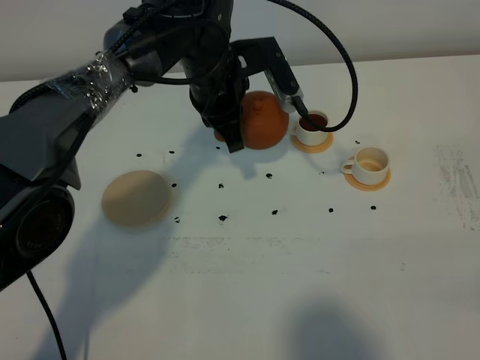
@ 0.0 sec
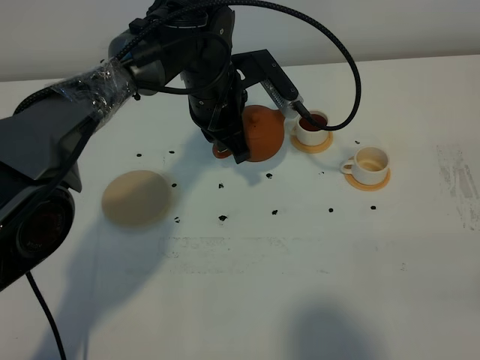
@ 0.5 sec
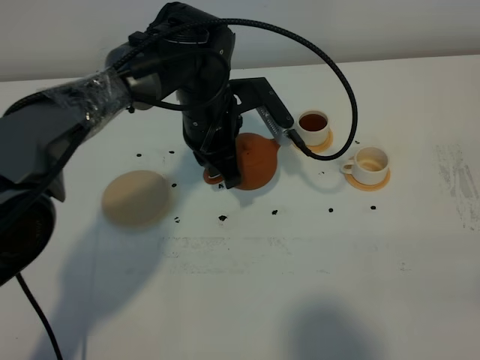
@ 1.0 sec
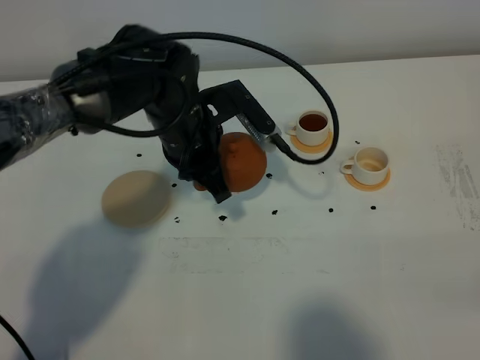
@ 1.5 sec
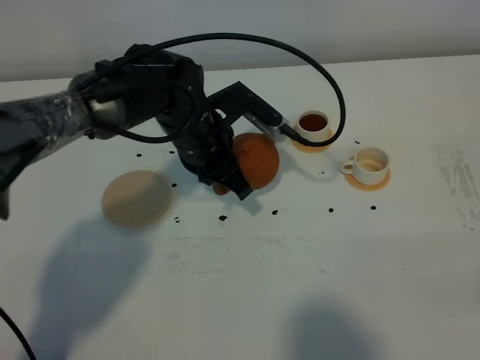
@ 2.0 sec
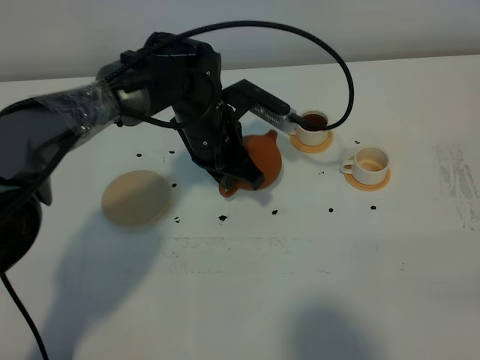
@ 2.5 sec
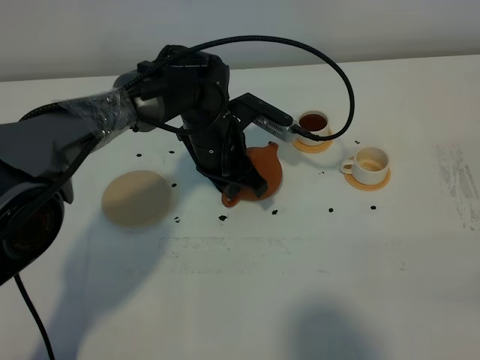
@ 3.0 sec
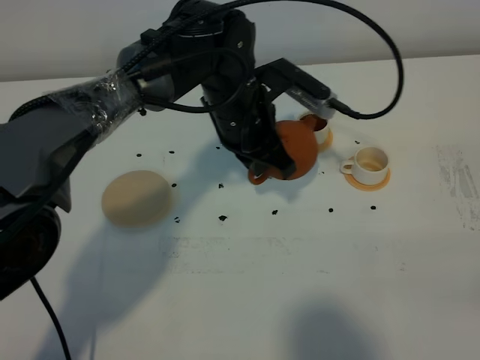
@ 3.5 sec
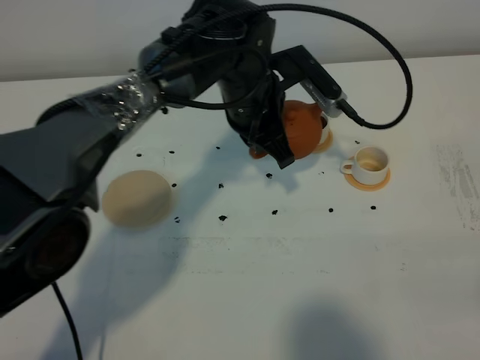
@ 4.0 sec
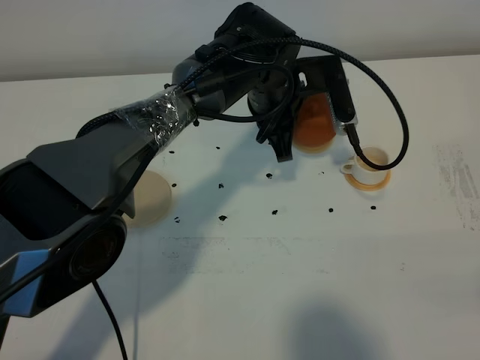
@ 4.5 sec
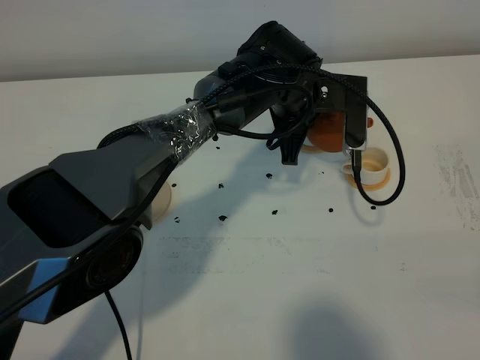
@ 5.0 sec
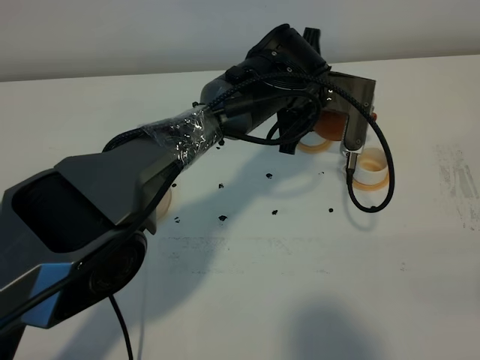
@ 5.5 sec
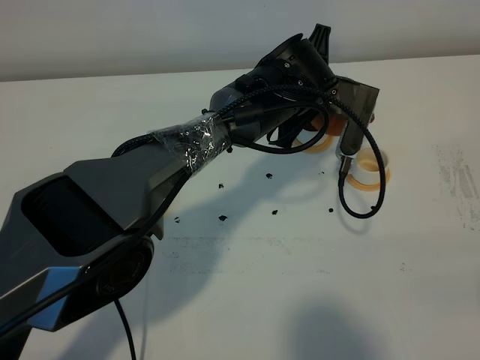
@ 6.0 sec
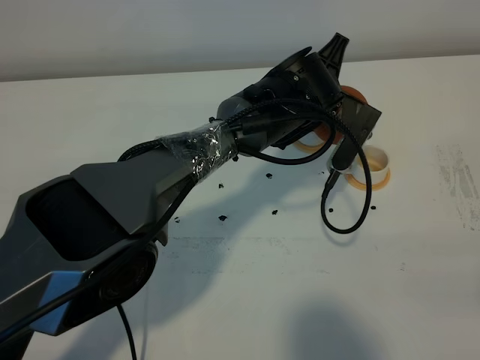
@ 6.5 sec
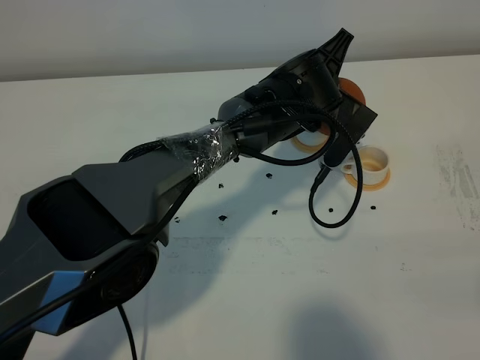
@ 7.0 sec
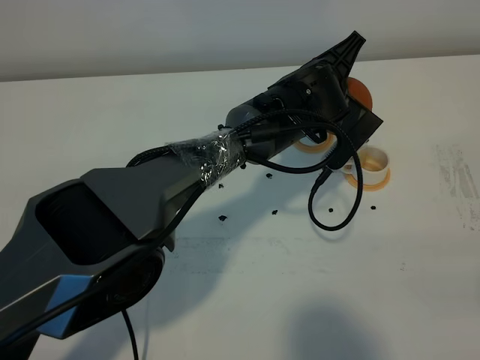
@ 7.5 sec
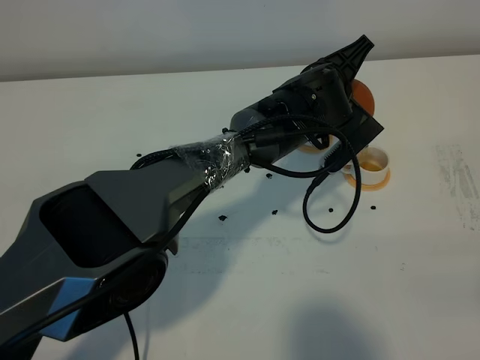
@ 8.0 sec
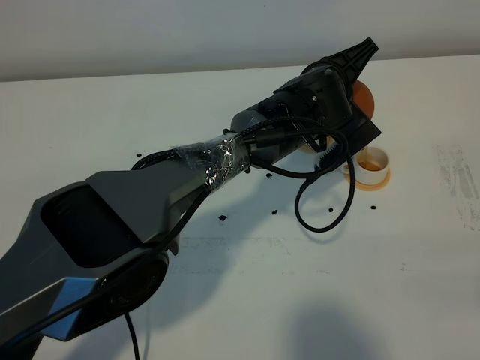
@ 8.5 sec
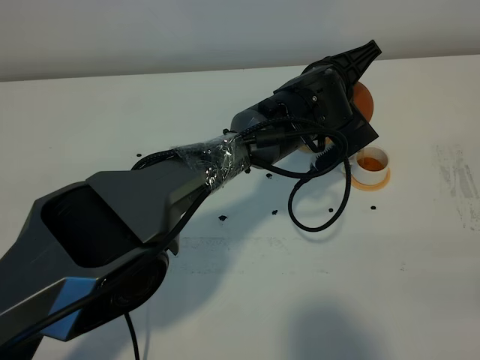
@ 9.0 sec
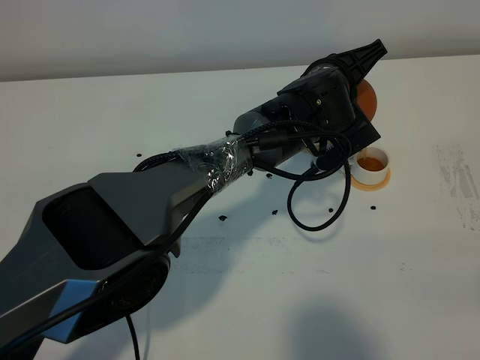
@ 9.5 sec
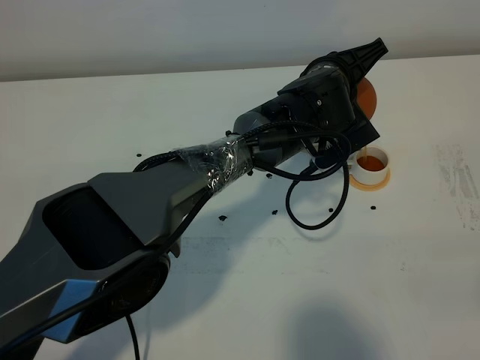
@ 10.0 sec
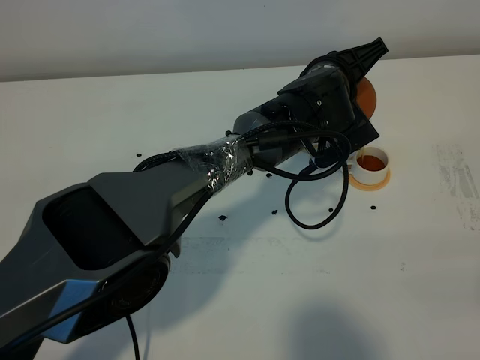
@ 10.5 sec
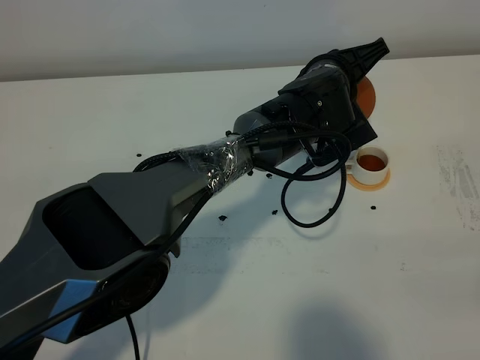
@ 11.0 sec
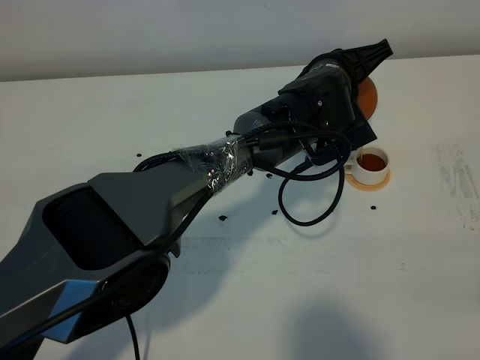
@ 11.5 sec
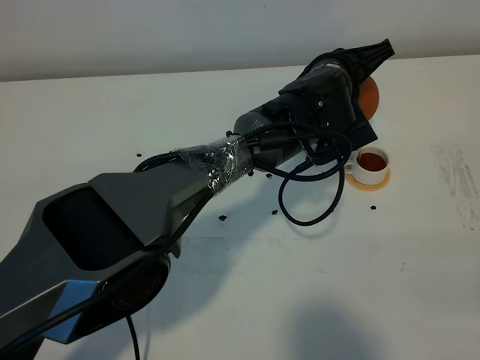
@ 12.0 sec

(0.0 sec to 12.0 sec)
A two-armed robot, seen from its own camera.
Task of the whole recording: grasp the brown teapot and pour the tea into the two white teacups one by one, put the brown teapot back in its original place.
0.0 sec - 2.0 sec: The left gripper is displaced backward by approximately 5 cm.
2.0 sec - 4.0 sec: The left gripper heads to the right, covering about 5 cm.
4.0 sec - 6.0 sec: The left gripper is displaced to the right by roughly 5 cm.
8.0 sec - 12.0 sec: The grippers move only a little.

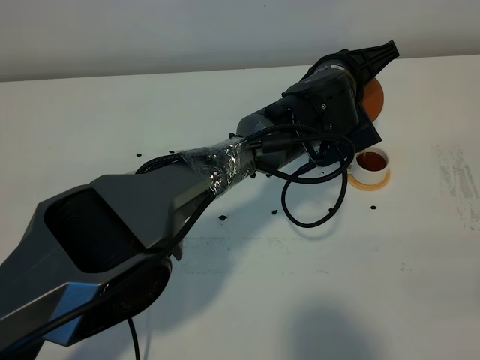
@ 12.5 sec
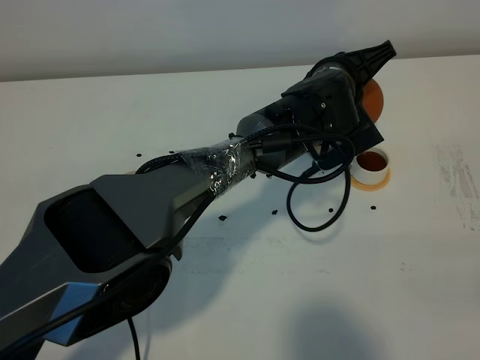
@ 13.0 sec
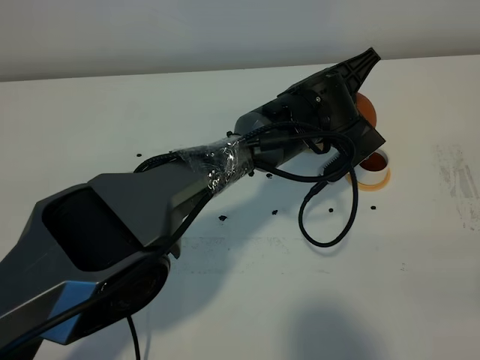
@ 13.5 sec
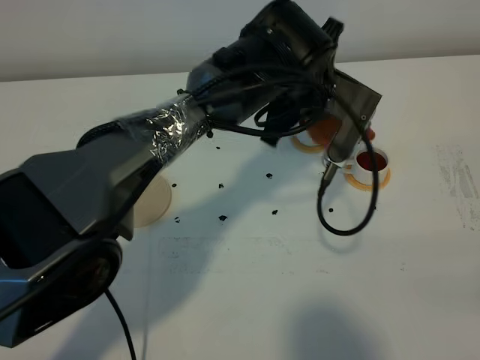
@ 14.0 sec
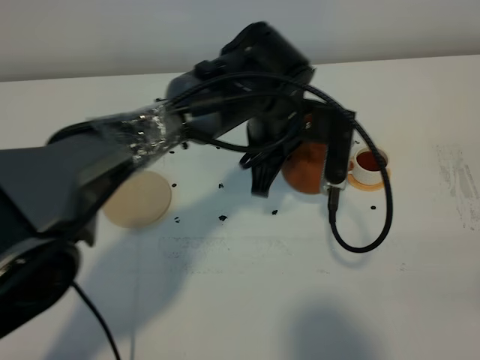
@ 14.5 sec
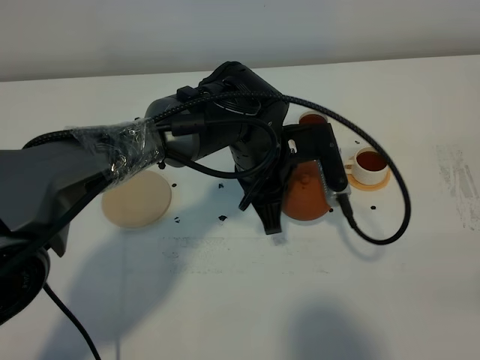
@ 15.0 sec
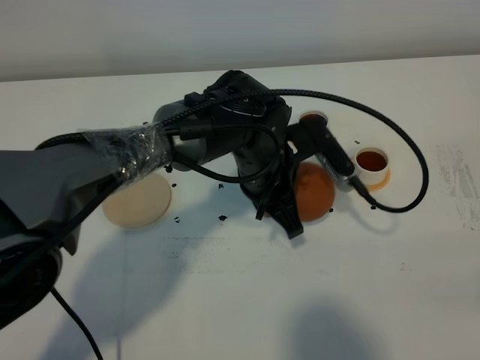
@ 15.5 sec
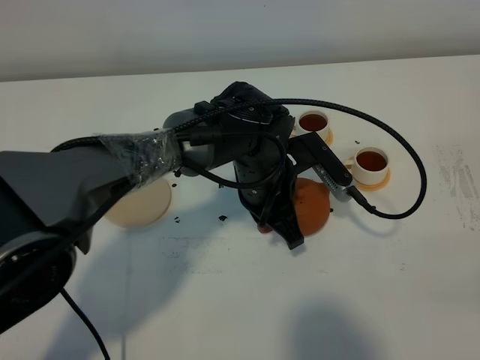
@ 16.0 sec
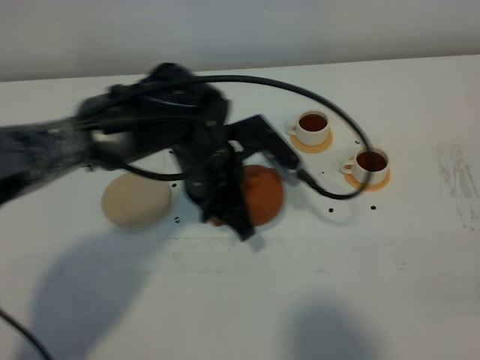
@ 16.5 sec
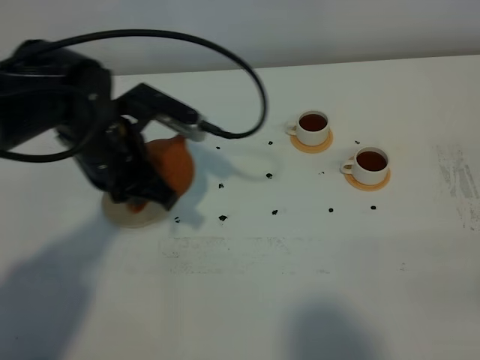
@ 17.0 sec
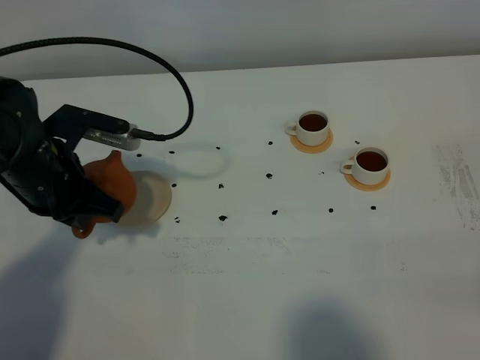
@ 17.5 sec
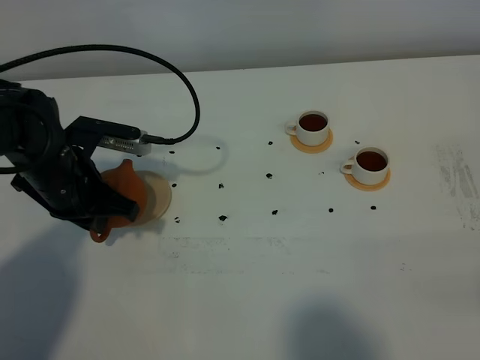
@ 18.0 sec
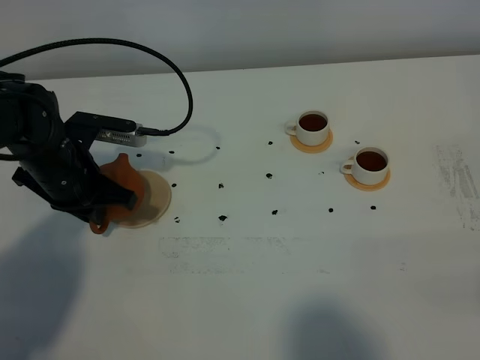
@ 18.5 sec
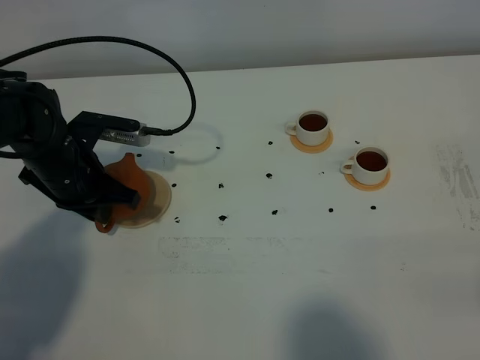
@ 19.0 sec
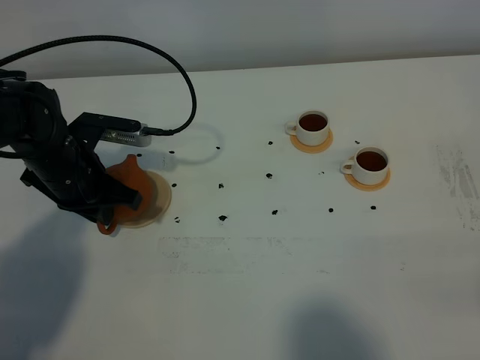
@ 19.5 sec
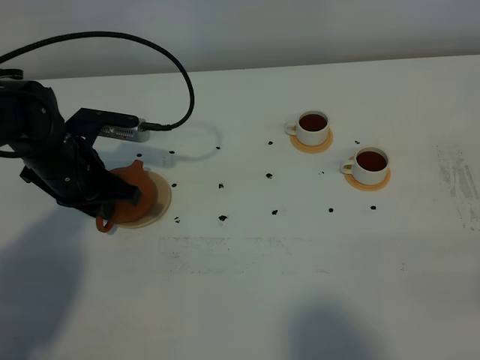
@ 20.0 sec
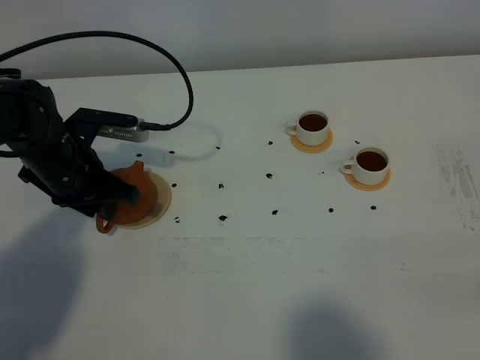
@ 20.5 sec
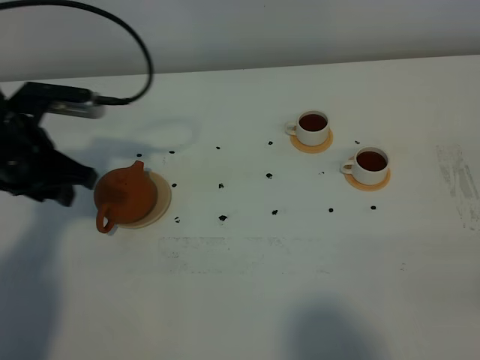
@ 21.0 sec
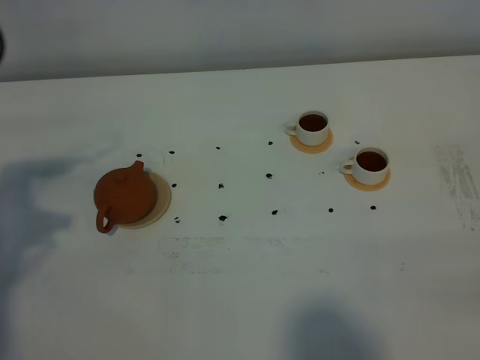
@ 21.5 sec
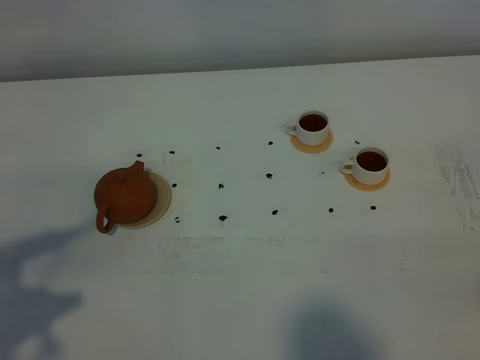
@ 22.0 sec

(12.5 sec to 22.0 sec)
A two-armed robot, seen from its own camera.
Task of the whole recording: grasp the brown teapot and pour the tea into the two white teacups one by one, put the brown teapot back in its original place.
Step, 12.5 sec - 14.5 sec: Pour tea into the teacup with the left gripper.
12.5 sec - 14.5 sec: The left gripper heads to the left, covering some 10 cm.
14.5 sec - 16.5 sec: The left gripper is displaced to the left by some 10 cm.
16.5 sec - 18.0 sec: The left gripper travels to the left by roughly 15 cm.
18.0 sec - 20.0 sec: The grippers make only small movements.
20.0 sec - 22.0 sec: The left gripper heads backward and upward, covering about 30 cm, and opens its fingers.

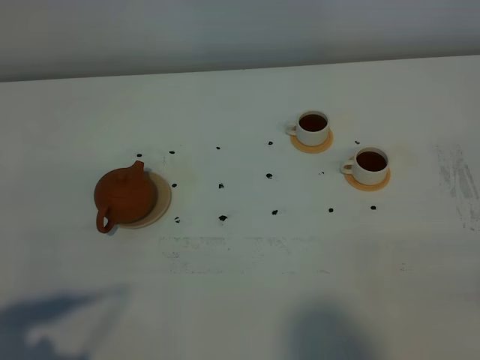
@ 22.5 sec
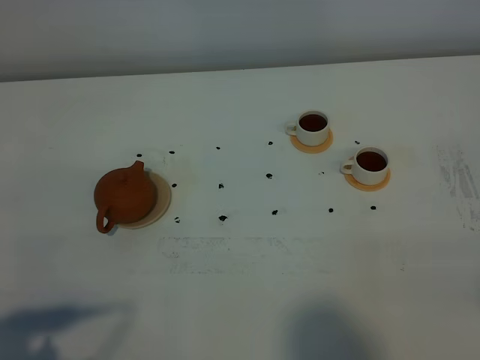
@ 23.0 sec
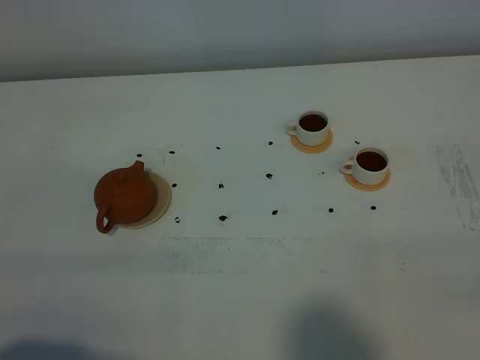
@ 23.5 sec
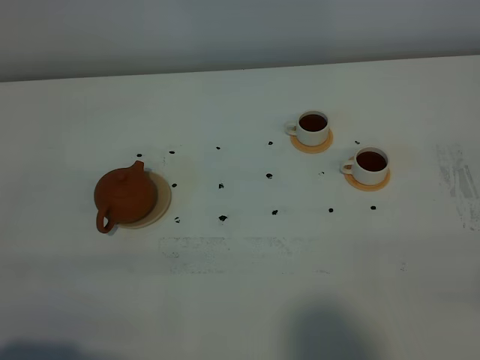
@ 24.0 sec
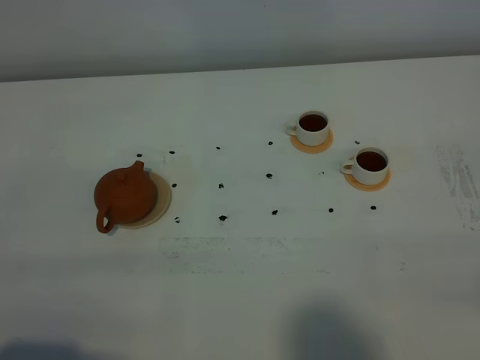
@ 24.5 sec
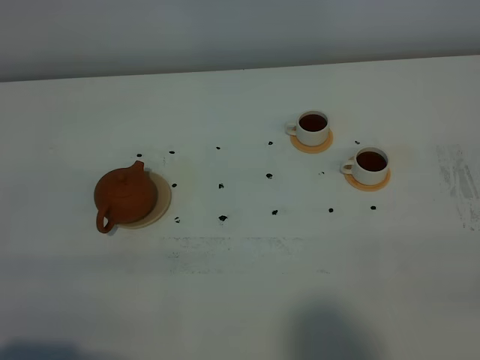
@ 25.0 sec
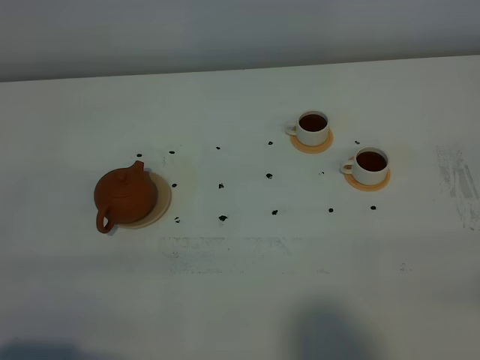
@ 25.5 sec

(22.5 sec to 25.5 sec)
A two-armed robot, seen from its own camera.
Task of the whole recording: grasp the brown teapot and pour the tea into the two white teacups one by one, put the brown teapot back in its original place.
24.0 sec - 25.5 sec: Neither gripper changes place.
